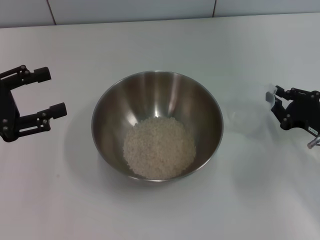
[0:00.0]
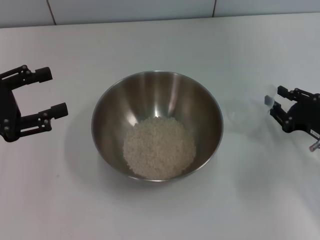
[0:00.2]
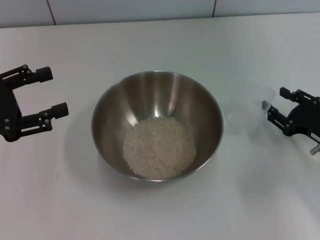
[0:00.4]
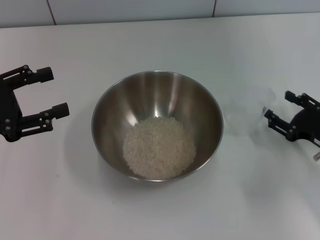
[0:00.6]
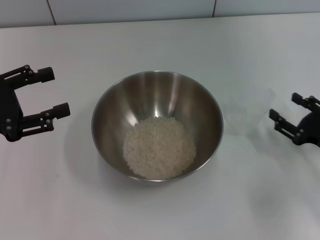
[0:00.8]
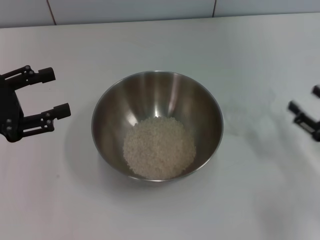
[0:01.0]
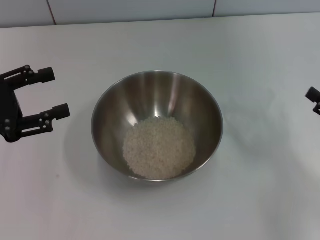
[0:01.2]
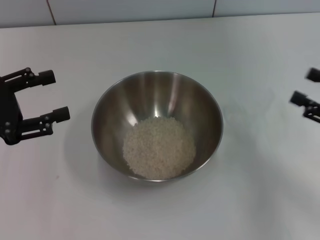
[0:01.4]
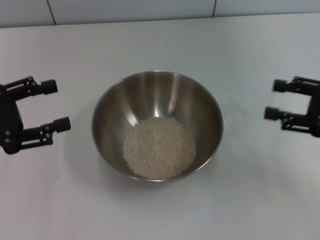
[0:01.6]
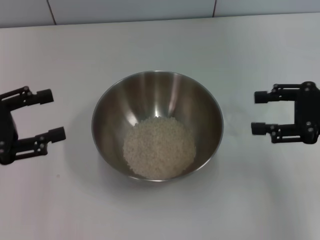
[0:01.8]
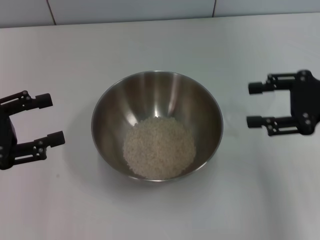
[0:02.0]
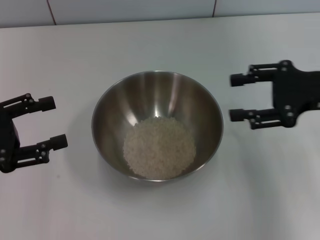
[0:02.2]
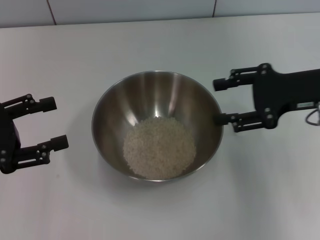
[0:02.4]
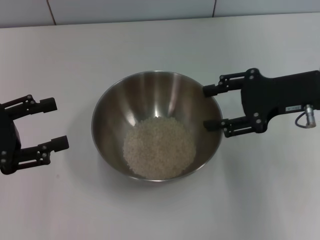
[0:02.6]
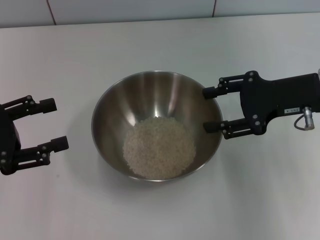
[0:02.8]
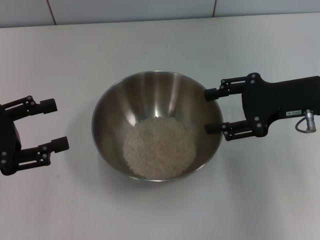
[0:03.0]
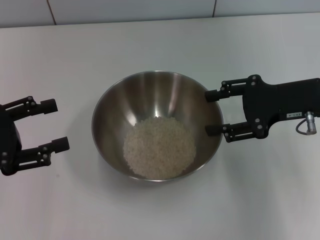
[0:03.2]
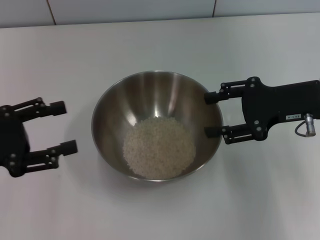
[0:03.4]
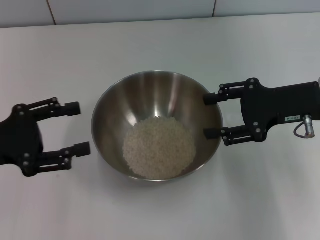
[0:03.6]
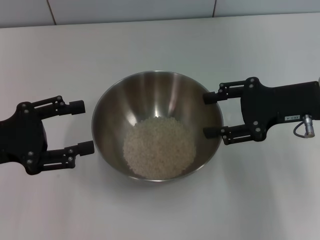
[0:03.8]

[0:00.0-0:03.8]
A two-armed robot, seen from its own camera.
Task of the whole recording: Place the bowl in the middle of the table with one hand and pour the rice from the grain cup into it with the other hand.
0:00.0 to 0:01.2: The right gripper shifts roughly 5 cm backward, and opens its fingers.
0:01.2 to 0:02.6: The right gripper goes approximately 20 cm to the left, forward and upward.
0:02.6 to 0:03.8: There are only small adjustments of the grippers.
